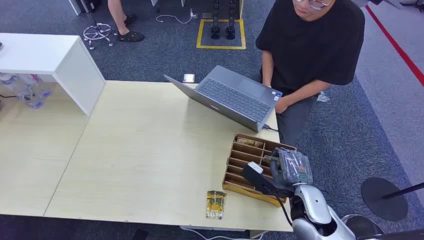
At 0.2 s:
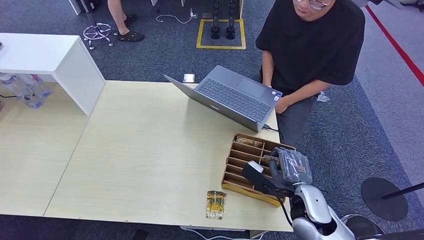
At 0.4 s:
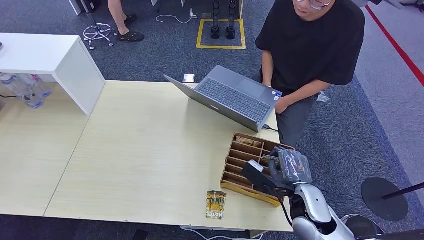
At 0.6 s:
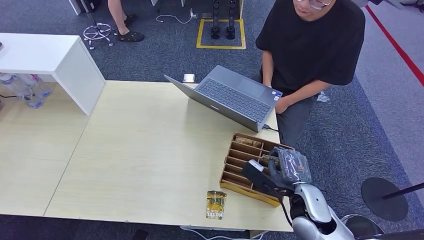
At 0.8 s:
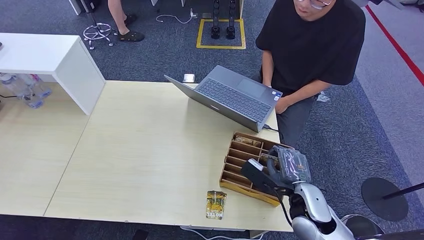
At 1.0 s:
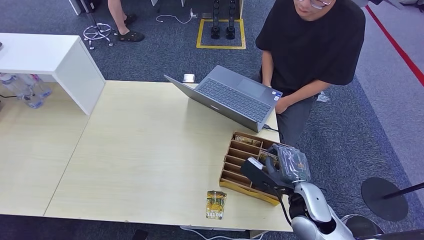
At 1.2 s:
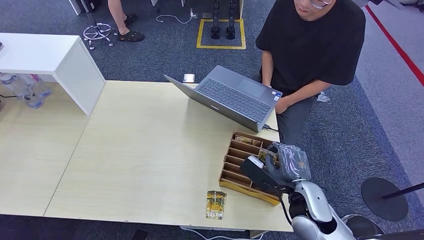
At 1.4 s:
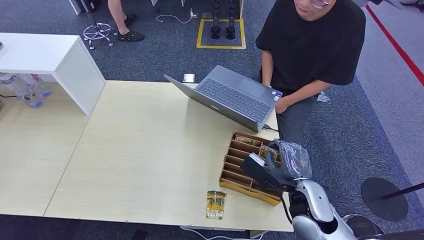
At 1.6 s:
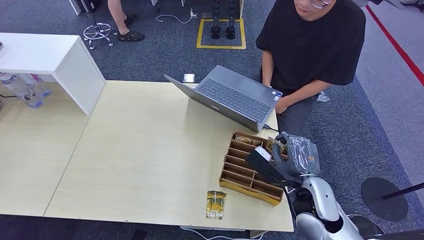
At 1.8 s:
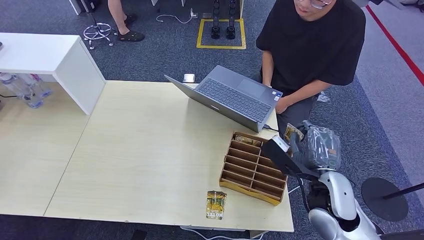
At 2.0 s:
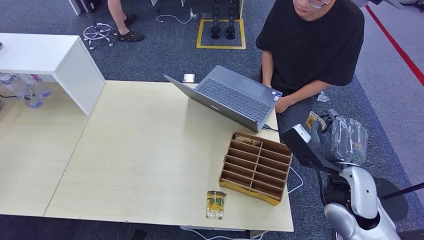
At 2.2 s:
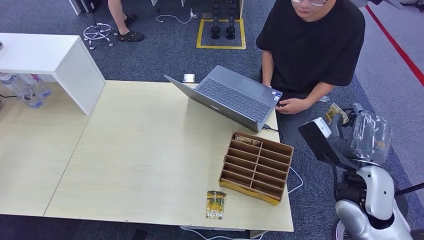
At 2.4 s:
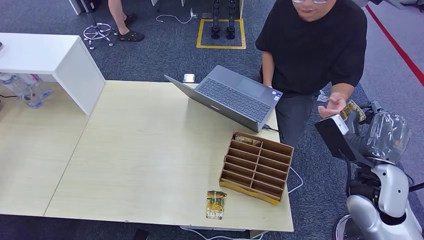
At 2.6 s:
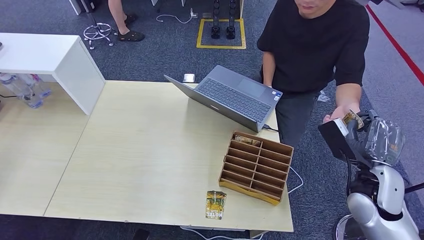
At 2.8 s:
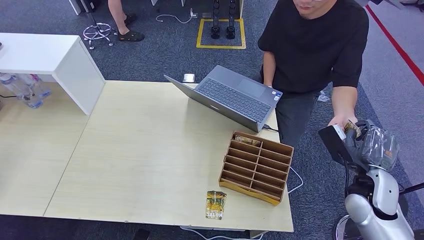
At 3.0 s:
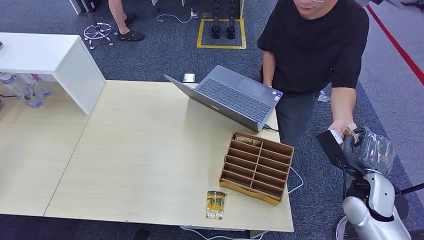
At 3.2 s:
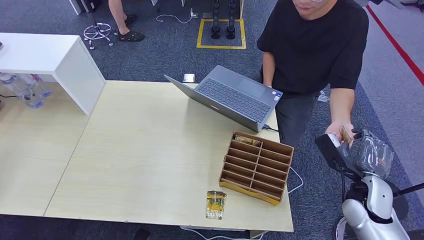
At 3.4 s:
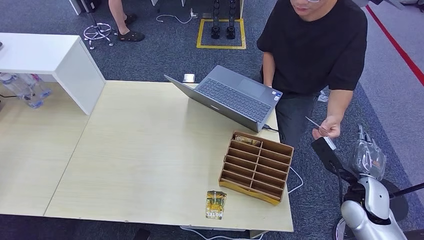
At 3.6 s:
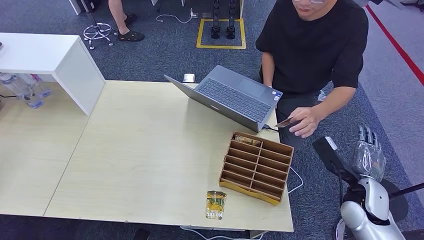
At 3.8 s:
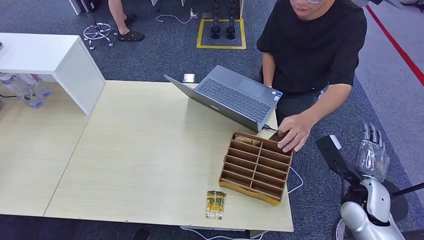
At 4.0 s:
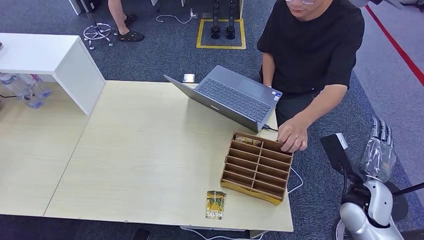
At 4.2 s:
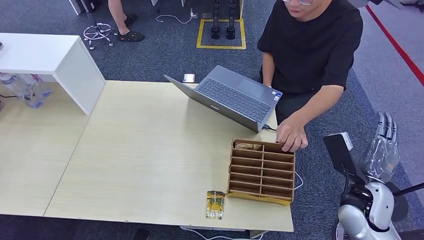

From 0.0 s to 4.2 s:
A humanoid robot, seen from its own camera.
Step, from 0.0 s to 2.0 s: Pick up the room card from the card holder.
Step, from 2.2 s to 4.2 s: Hand the room card to the target.
From 1.4 s to 2.8 s: The right hand goes some 15 cm to the right.
From 2.8 s to 4.2 s: The hands stay close to where they were, moving slightly.
